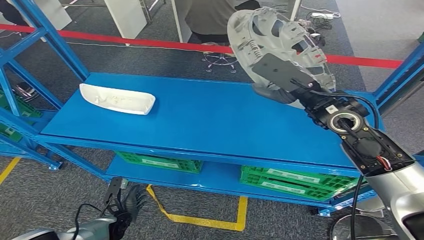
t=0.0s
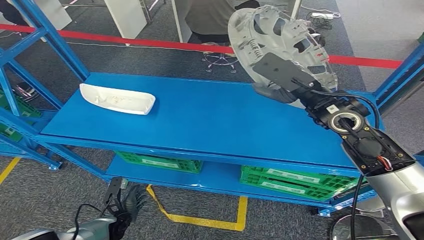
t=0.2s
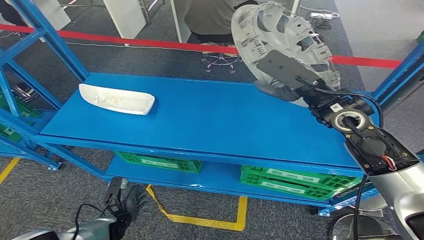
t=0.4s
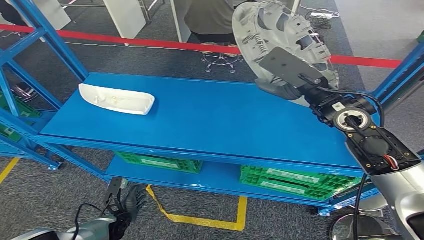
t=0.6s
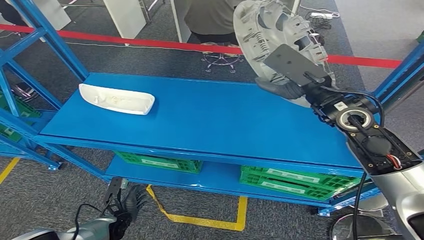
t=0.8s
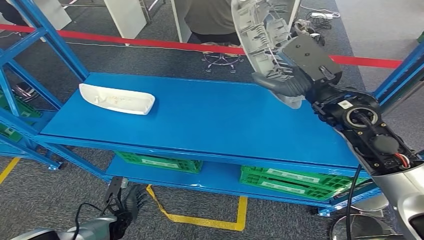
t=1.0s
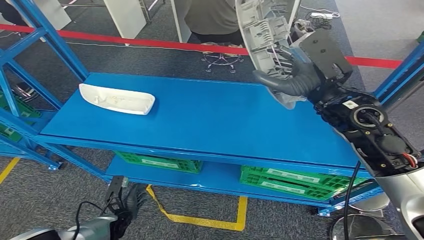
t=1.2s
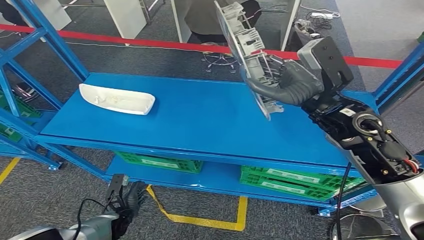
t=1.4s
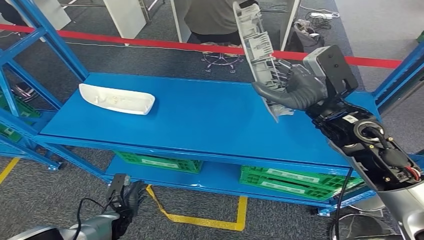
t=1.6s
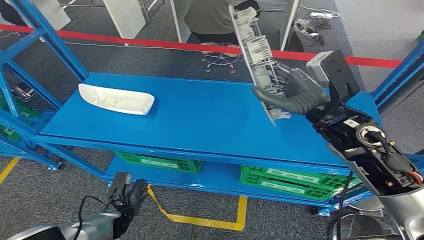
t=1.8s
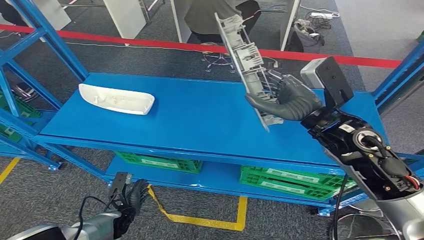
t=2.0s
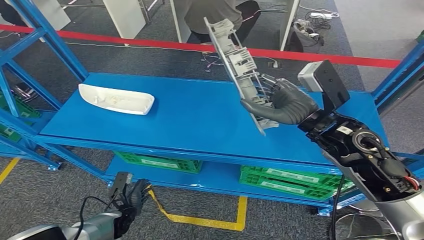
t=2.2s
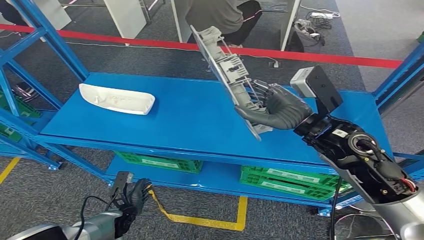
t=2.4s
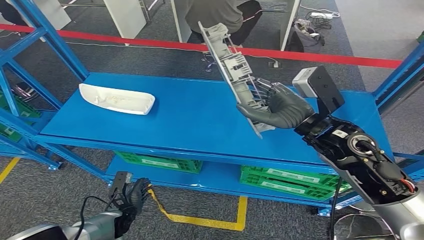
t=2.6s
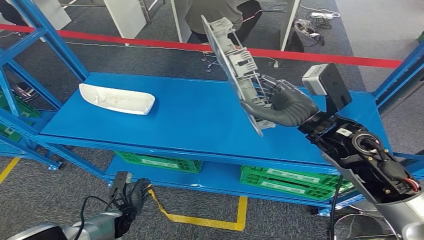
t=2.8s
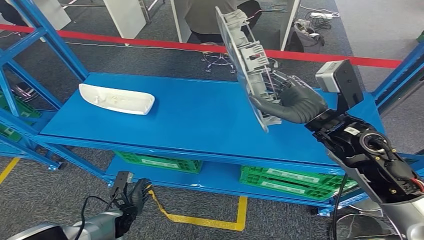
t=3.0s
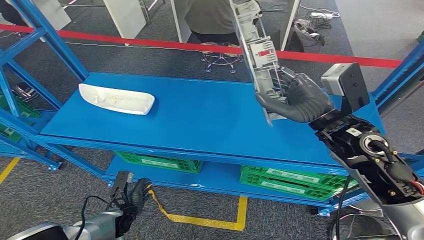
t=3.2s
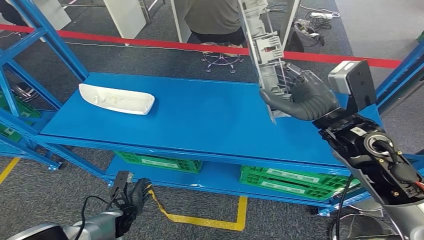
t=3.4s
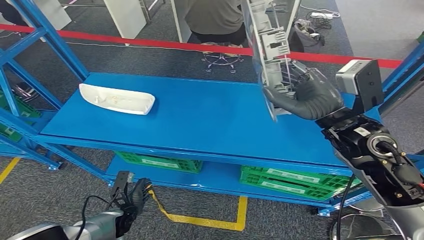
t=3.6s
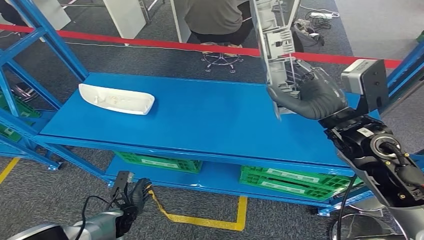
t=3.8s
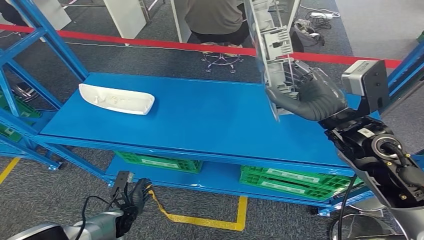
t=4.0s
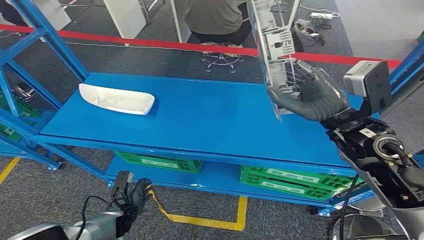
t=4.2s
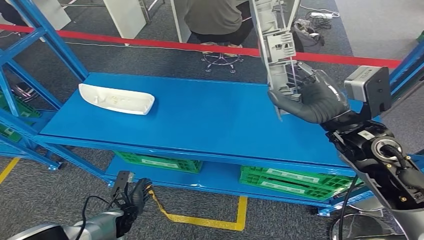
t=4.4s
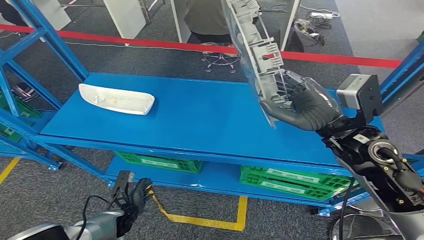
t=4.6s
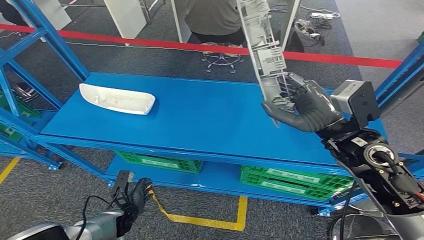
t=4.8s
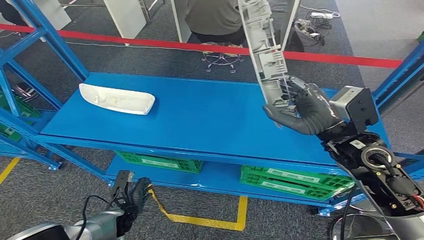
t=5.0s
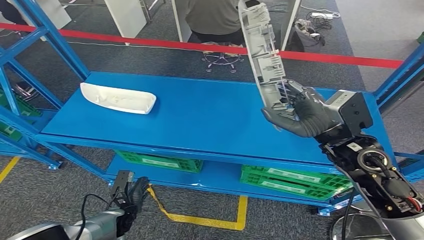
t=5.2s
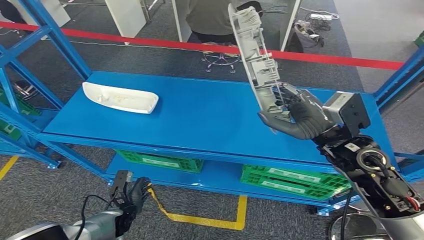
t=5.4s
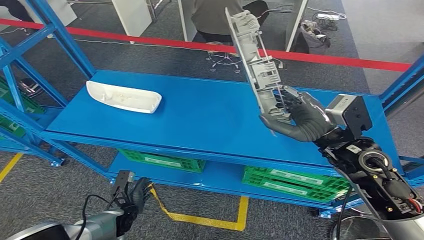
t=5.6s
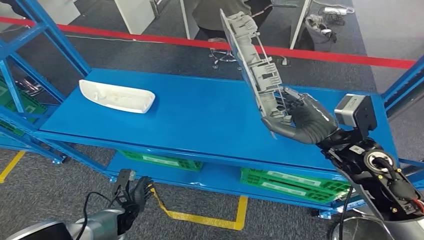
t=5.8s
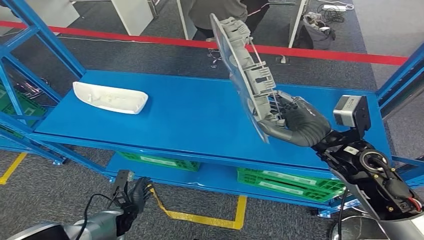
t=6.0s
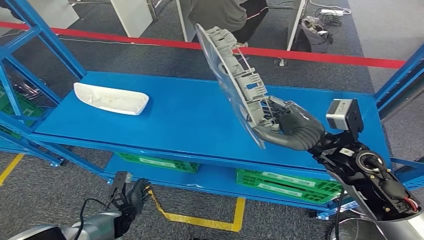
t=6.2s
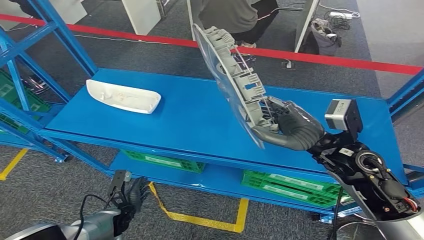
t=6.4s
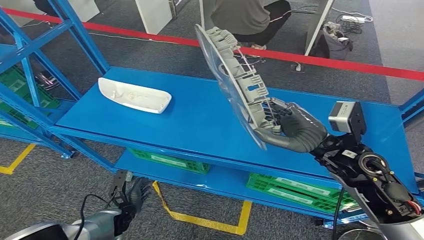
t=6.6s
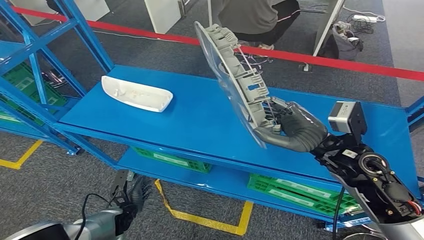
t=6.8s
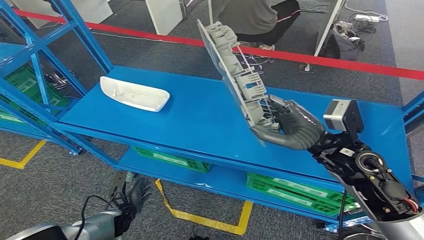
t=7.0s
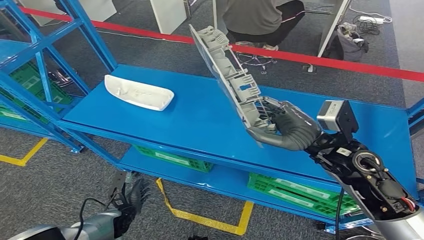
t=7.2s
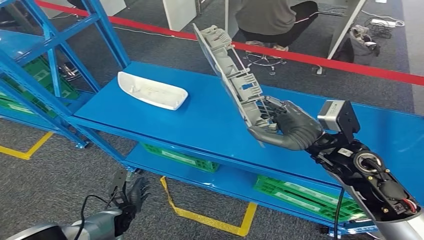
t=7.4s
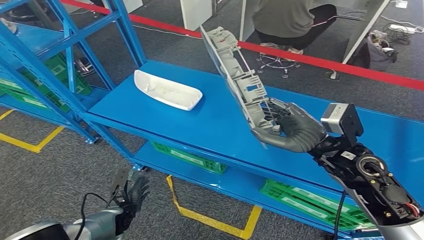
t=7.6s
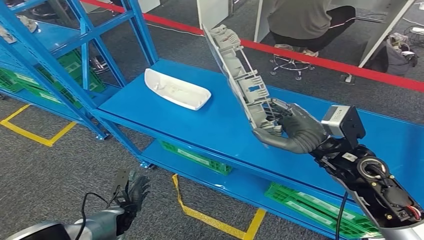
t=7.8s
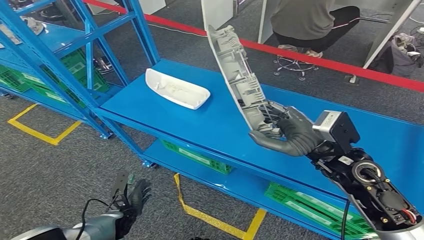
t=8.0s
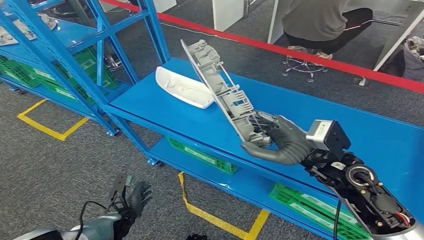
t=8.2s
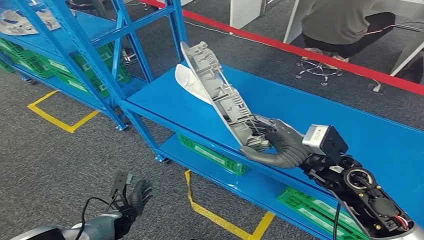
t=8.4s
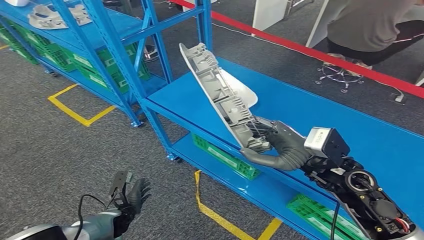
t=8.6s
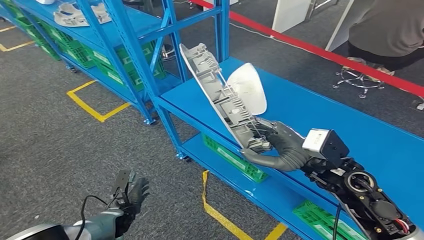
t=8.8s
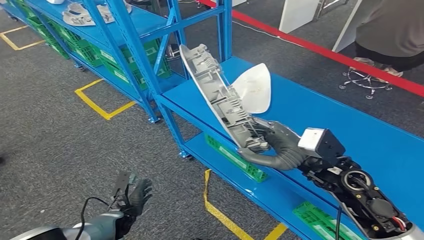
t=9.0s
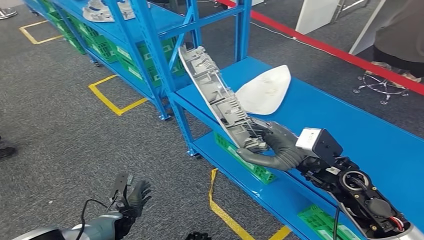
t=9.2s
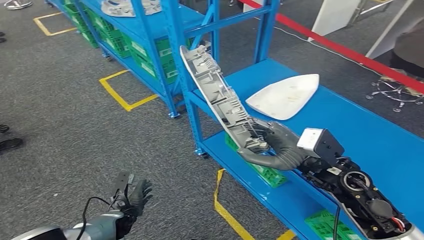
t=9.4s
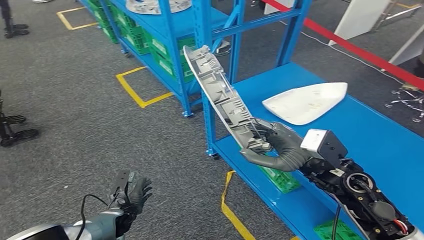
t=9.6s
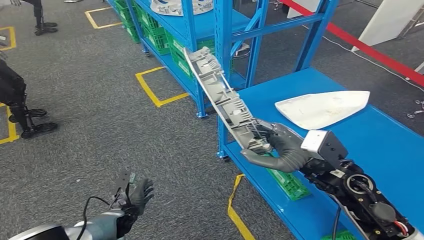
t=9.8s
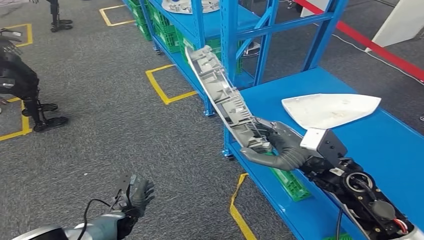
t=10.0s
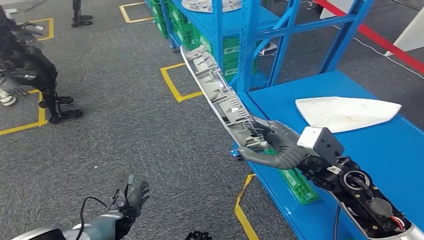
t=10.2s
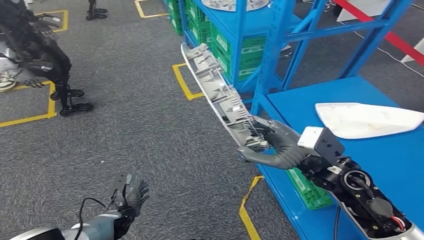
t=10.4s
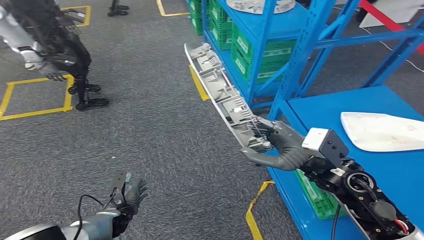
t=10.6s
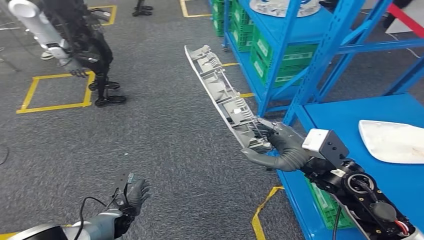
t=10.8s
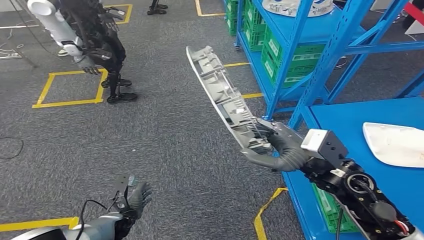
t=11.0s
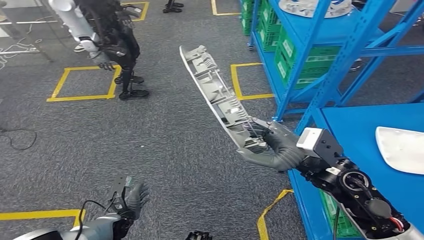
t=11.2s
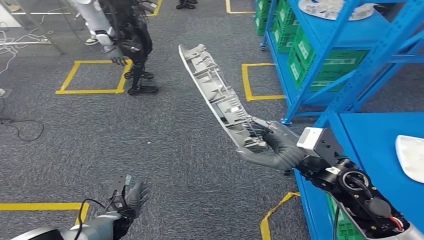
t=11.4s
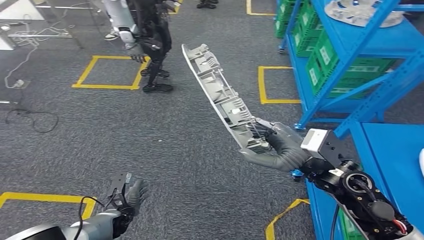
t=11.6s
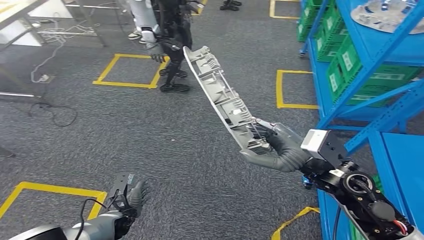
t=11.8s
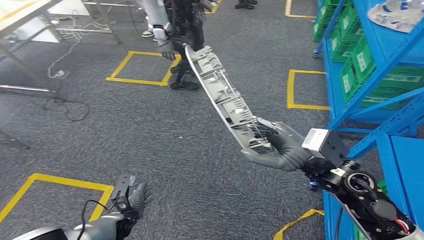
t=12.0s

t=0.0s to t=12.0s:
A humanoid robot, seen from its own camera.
t=1.6s to t=4.4s: The hands make only small movements.

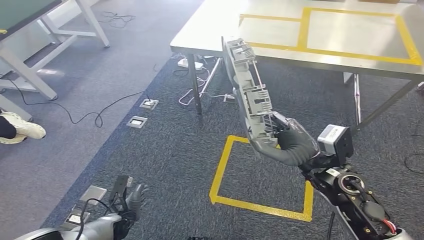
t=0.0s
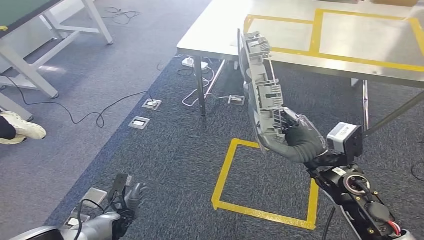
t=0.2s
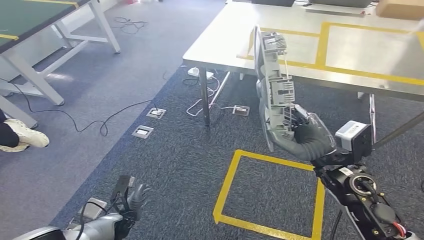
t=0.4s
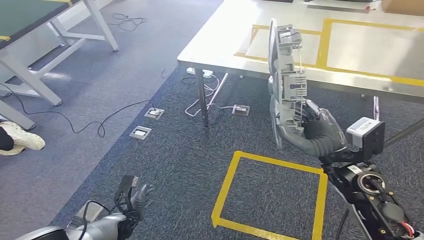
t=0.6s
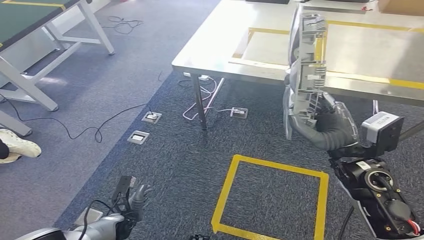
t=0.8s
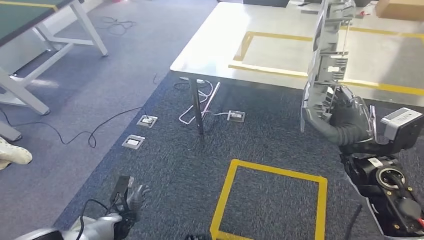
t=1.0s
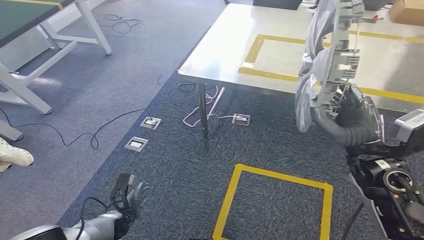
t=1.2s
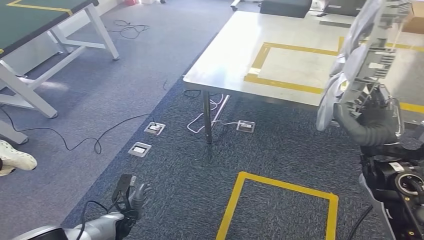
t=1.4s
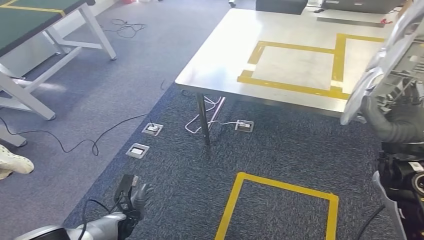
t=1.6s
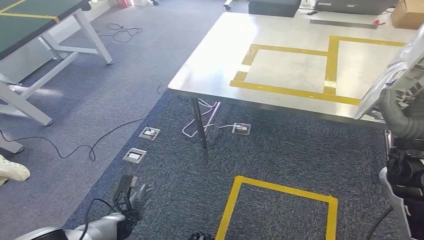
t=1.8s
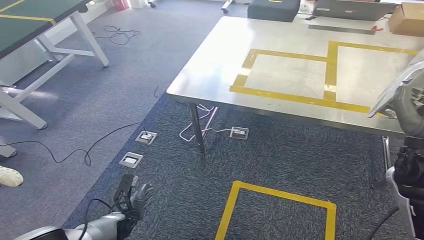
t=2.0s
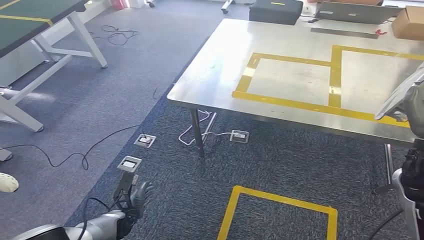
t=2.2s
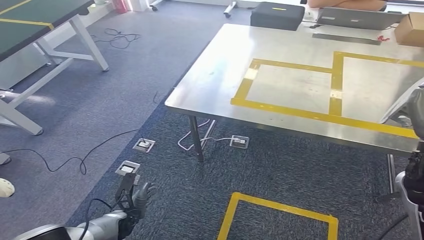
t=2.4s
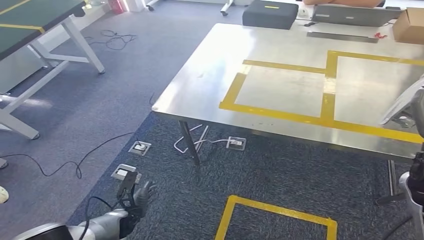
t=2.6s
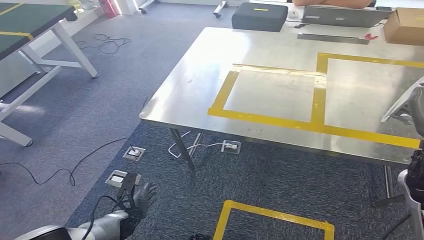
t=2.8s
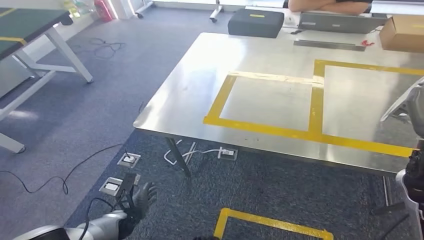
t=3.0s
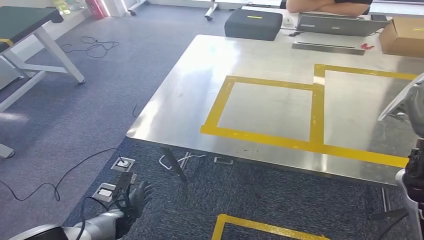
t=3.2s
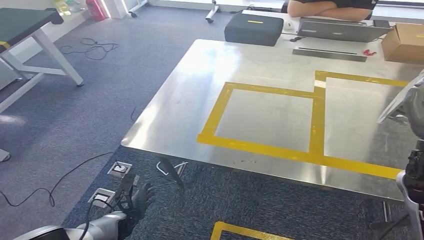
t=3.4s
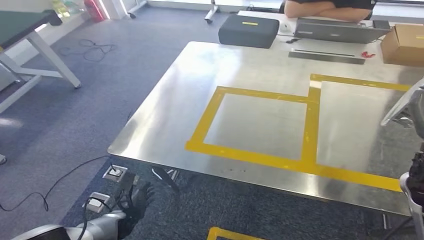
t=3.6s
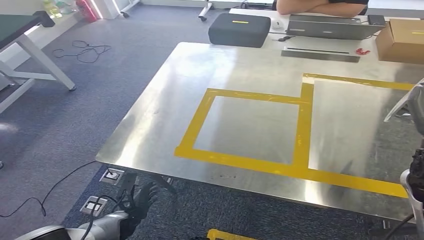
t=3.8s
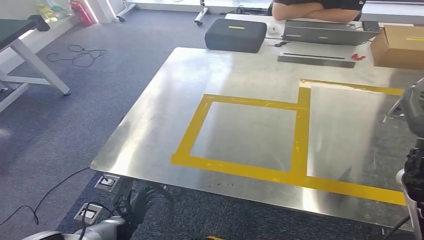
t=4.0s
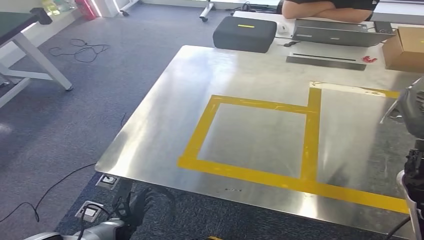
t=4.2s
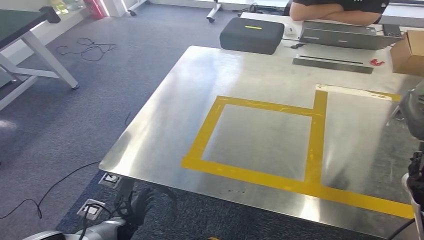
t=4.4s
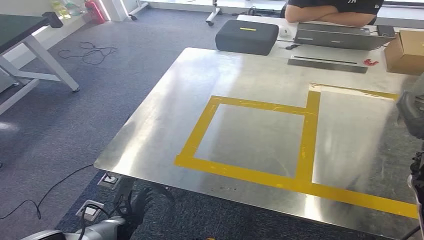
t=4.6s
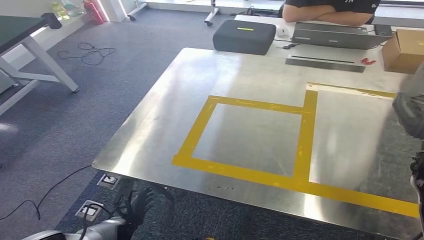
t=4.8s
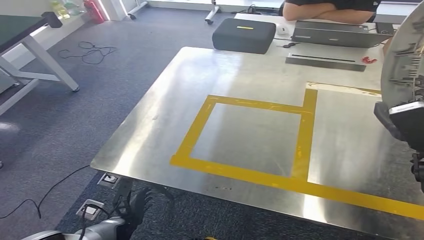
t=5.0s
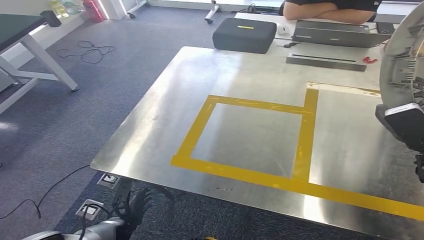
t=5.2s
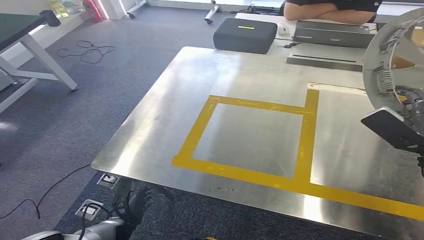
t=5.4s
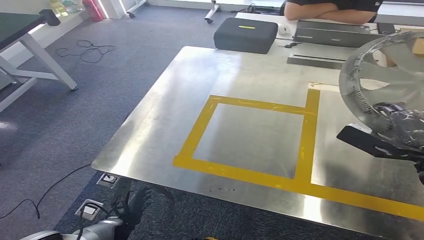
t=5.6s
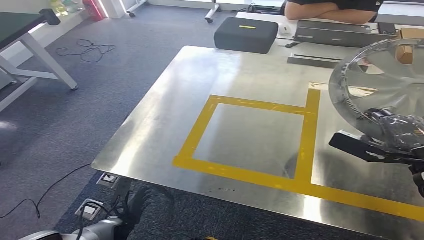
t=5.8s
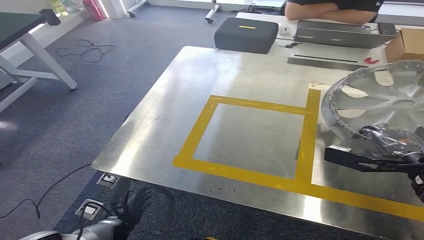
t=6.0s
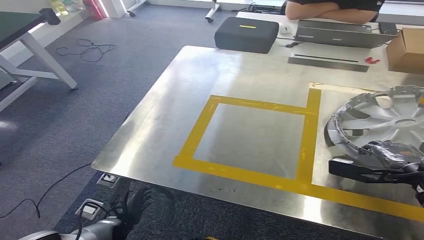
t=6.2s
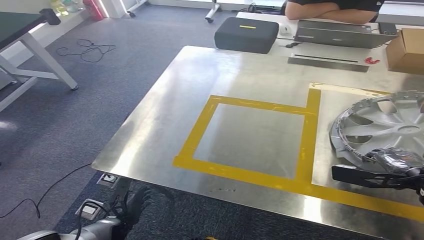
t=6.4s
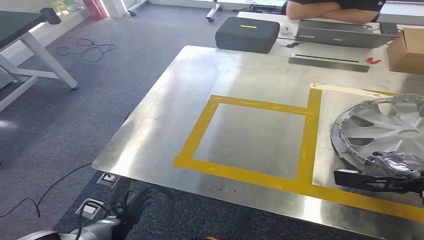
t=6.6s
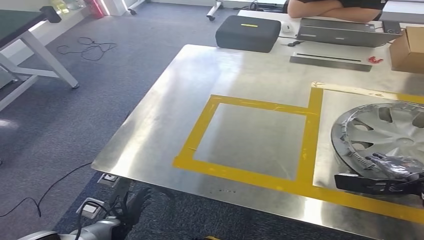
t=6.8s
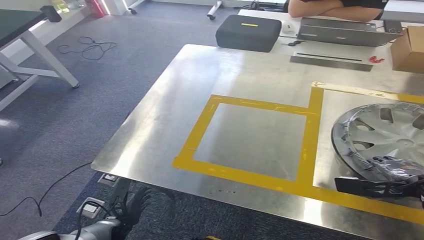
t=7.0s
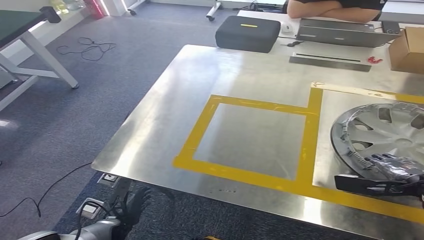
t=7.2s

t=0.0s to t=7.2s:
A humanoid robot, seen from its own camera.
Step, t=0.0s to t=3.8s: Move the small parts to the workbench.
t=5.8s to t=7.2s: The right hand moves downward, some 5 cm.
